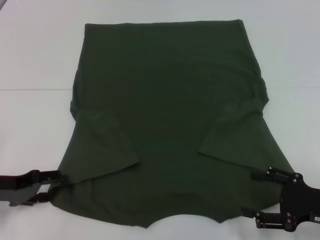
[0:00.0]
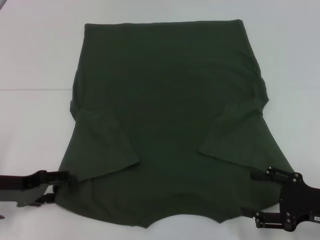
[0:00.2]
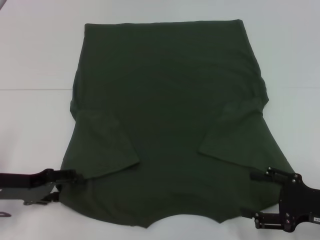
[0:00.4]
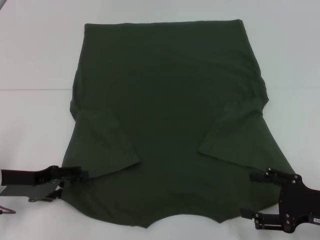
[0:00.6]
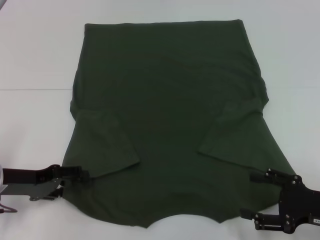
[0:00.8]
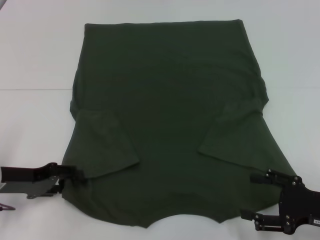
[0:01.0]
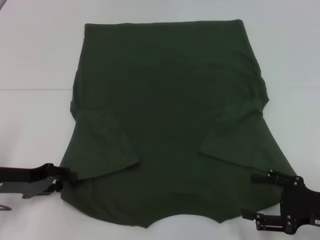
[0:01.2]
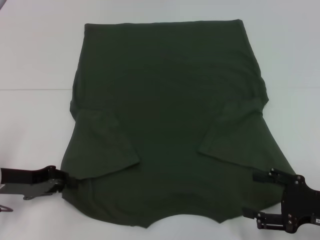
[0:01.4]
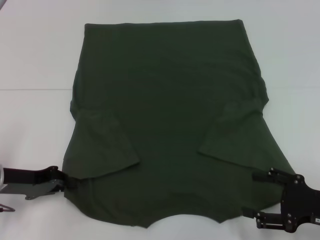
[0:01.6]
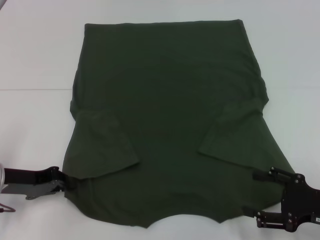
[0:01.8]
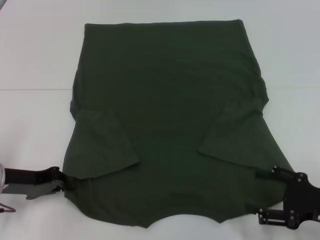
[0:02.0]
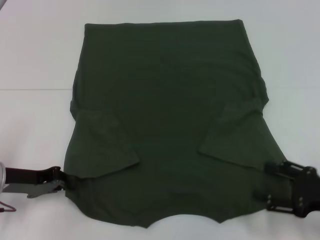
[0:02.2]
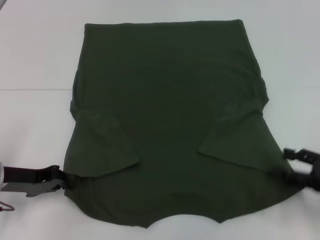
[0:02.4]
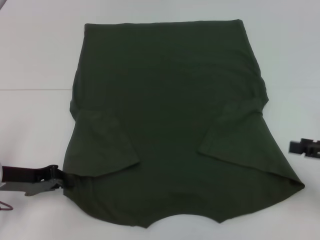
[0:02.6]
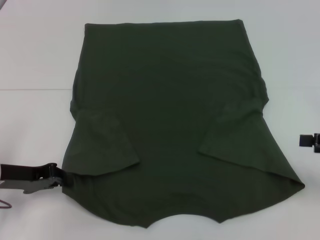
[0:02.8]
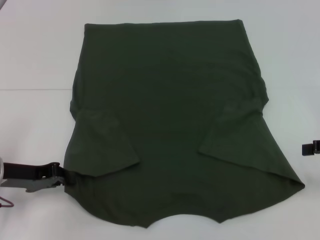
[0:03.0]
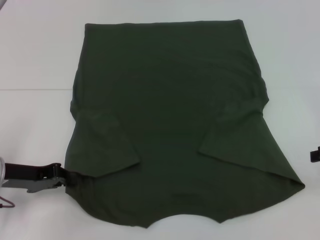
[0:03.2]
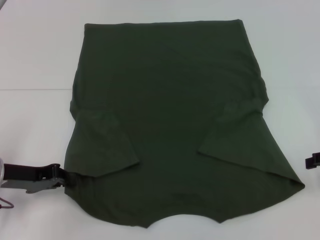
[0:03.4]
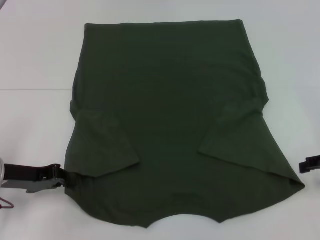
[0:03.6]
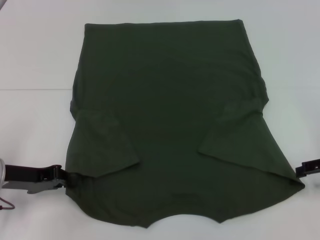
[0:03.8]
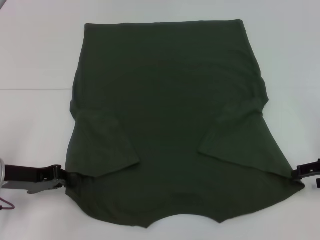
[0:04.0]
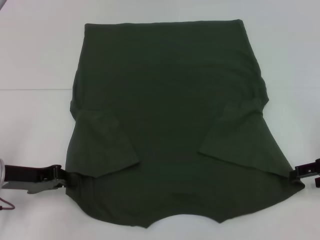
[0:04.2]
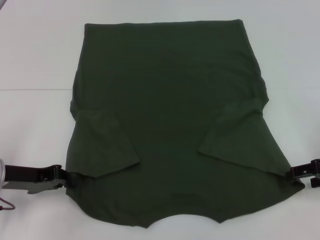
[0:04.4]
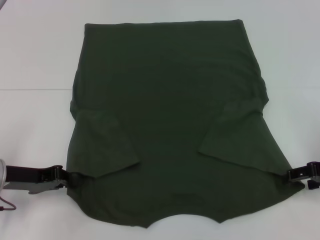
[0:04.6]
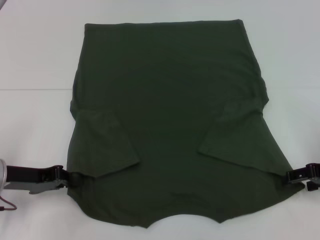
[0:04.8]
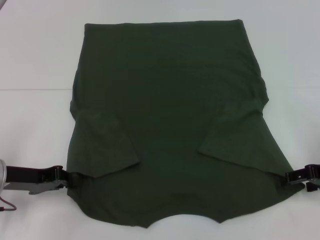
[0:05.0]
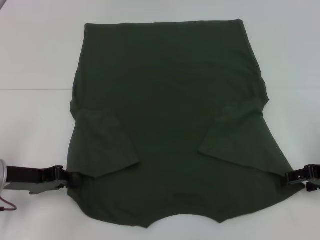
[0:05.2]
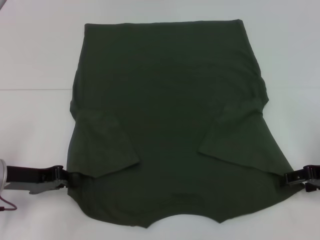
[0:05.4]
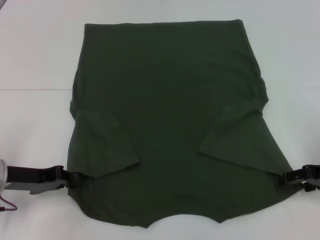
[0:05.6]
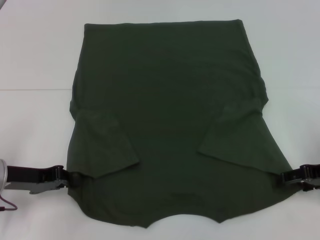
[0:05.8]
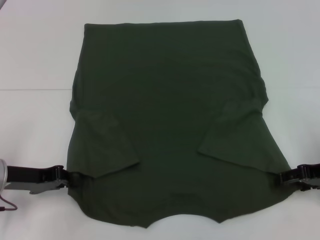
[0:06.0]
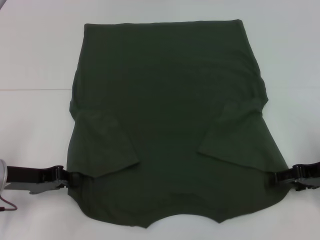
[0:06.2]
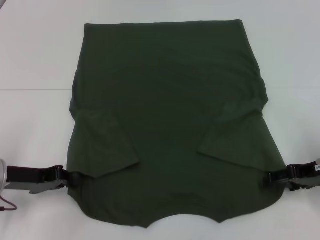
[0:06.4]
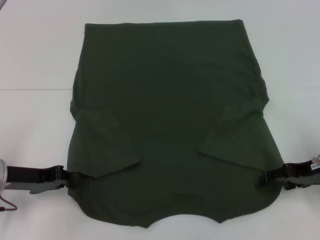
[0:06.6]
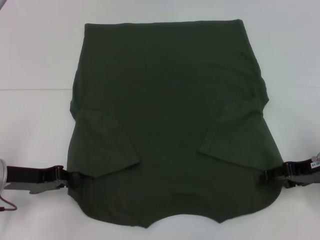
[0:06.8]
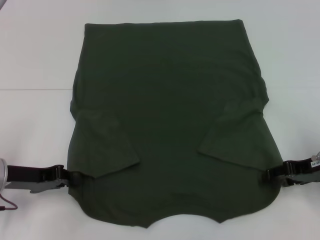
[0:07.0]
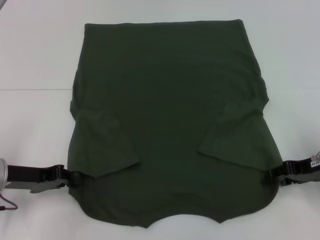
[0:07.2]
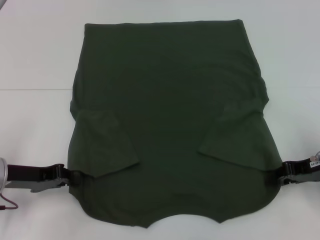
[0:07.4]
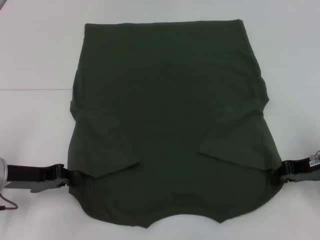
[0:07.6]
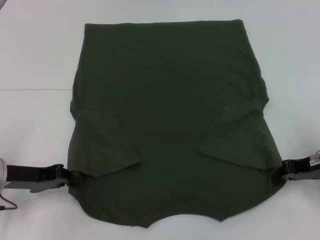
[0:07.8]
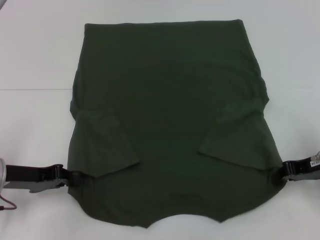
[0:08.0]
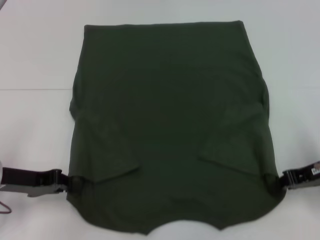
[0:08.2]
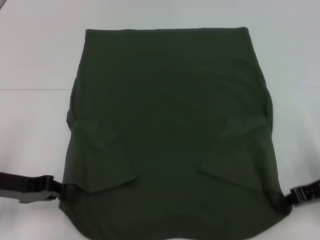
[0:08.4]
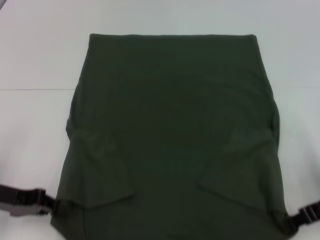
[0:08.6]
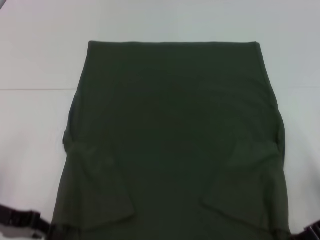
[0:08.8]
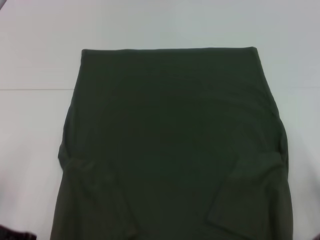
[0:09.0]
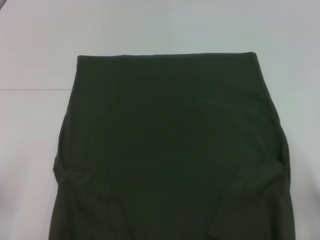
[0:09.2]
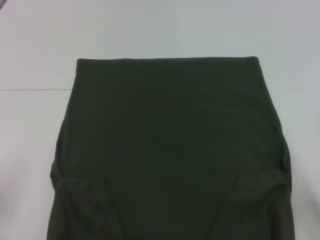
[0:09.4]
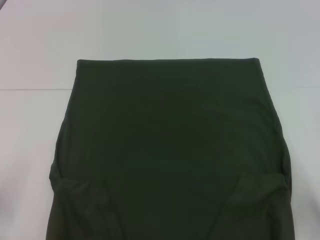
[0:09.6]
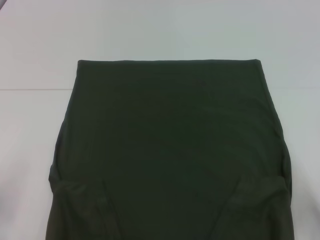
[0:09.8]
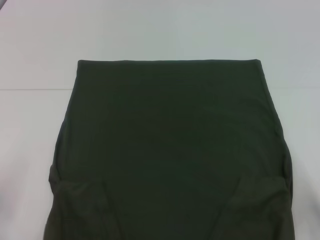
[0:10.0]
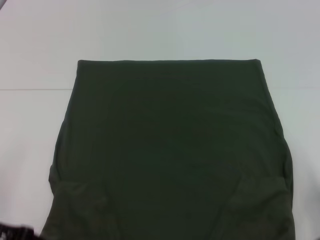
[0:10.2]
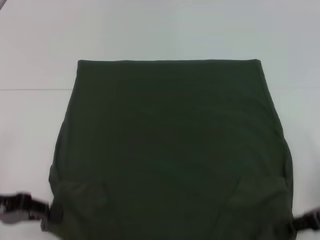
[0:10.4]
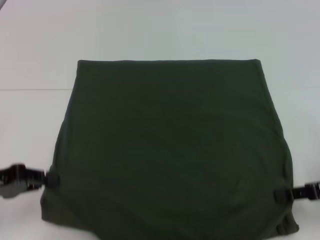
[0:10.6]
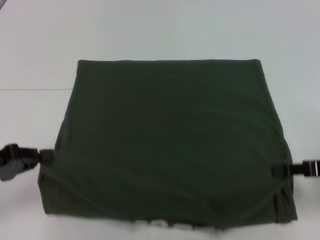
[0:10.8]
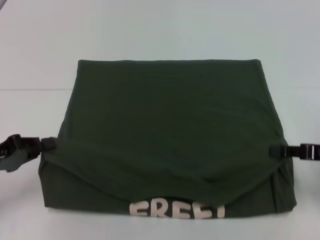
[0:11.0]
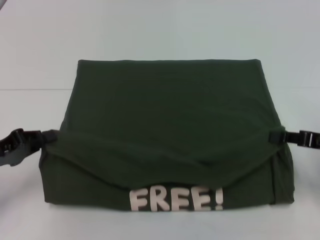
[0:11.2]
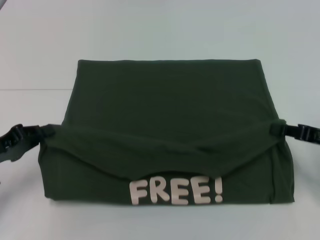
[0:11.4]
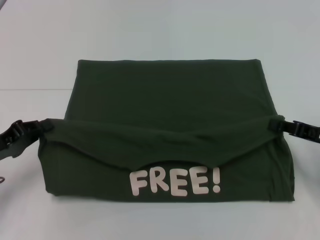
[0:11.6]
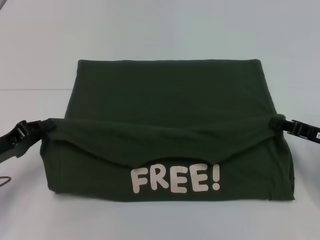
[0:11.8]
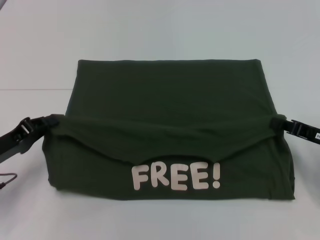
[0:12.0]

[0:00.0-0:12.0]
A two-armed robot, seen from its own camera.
Step, 0:00.0 to 0:02.2: Grab the bottom left corner with your left hand.
Step, 0:02.4 to 0:07.6: Grab the bottom right corner with your right hand.
0:00.0 to 0:01.6: The left gripper closes its fingers.
0:01.6 to 0:03.0: The right gripper goes about 15 cm upward, to the right and forward.
0:03.0 to 0:04.4: The right gripper moves some 5 cm.
0:04.4 to 0:06.0: The grippers stay close to where they were, moving slightly.
0:06.0 to 0:07.6: The right gripper closes its fingers.
0:07.6 to 0:09.0: Both grippers move backward, about 5 cm.
0:09.0 to 0:10.4: There are only small adjustments of the grippers.
0:10.4 to 0:12.0: The right gripper is displaced forward by roughly 5 cm, while the left gripper ends up about 5 cm from where it was.

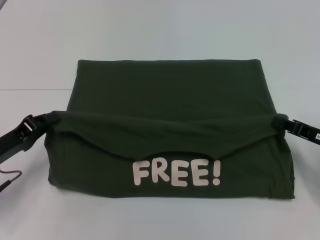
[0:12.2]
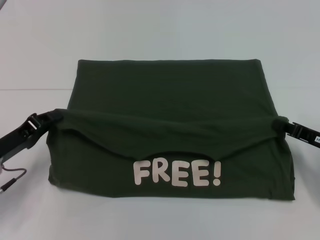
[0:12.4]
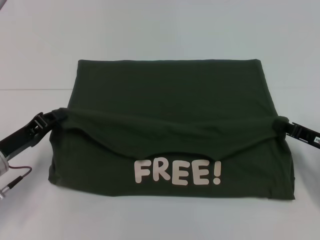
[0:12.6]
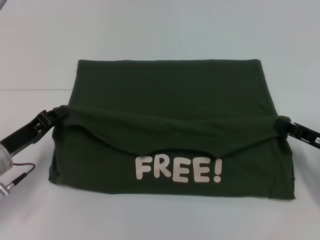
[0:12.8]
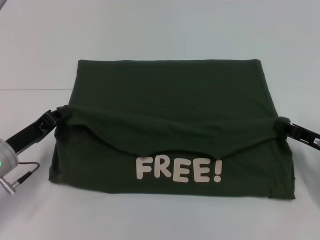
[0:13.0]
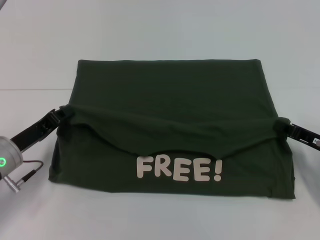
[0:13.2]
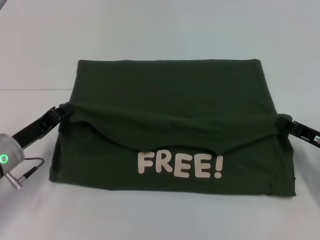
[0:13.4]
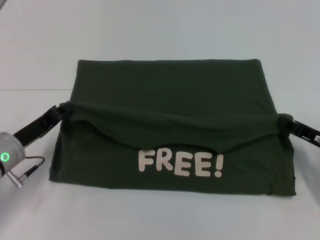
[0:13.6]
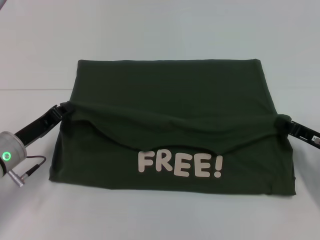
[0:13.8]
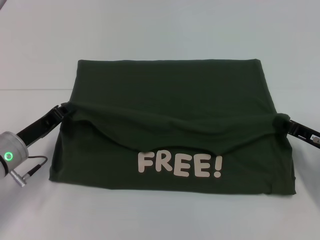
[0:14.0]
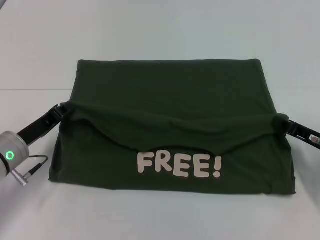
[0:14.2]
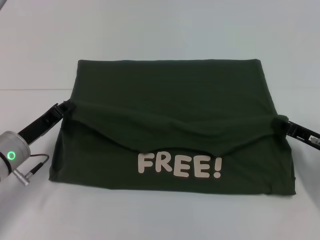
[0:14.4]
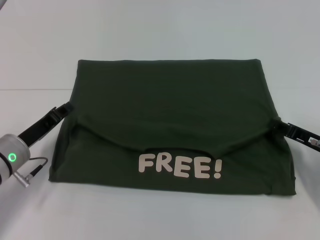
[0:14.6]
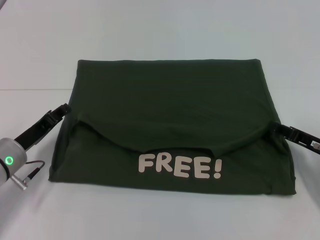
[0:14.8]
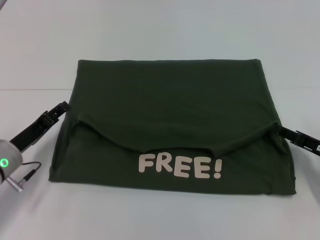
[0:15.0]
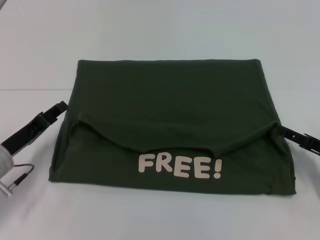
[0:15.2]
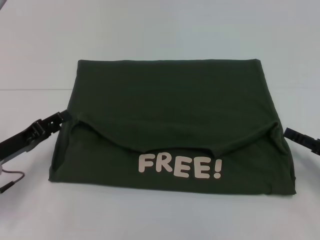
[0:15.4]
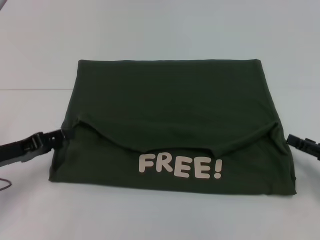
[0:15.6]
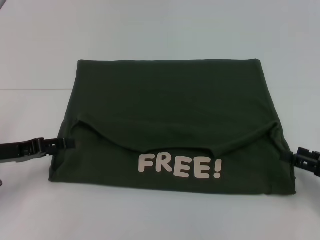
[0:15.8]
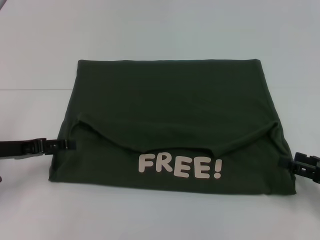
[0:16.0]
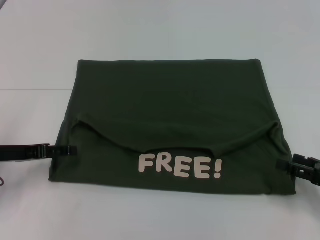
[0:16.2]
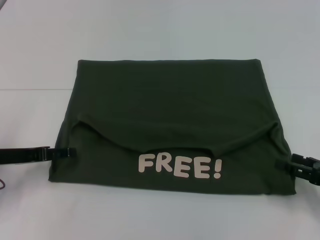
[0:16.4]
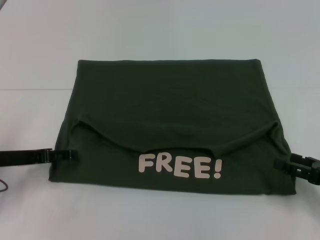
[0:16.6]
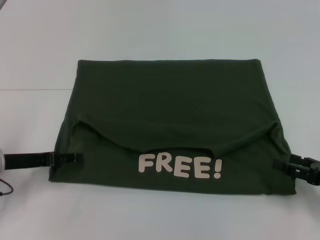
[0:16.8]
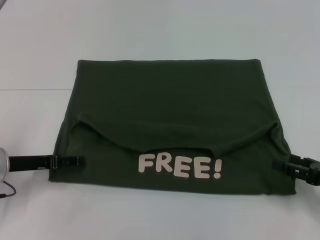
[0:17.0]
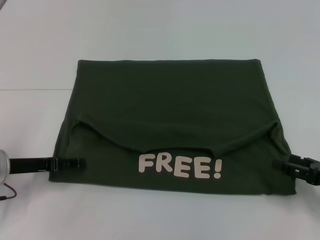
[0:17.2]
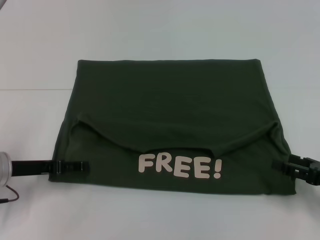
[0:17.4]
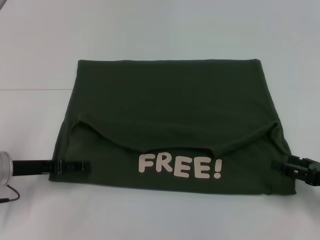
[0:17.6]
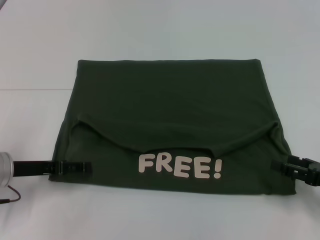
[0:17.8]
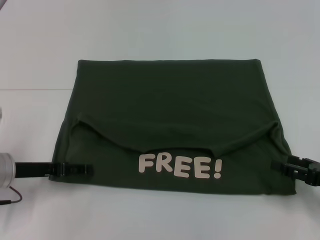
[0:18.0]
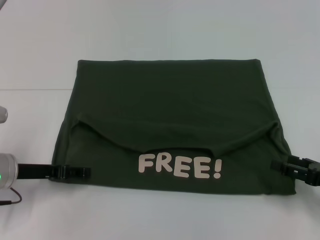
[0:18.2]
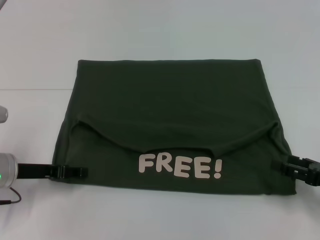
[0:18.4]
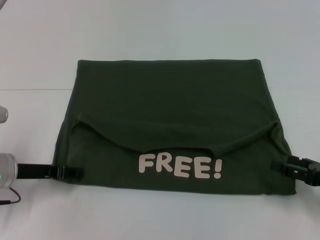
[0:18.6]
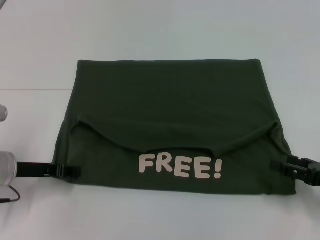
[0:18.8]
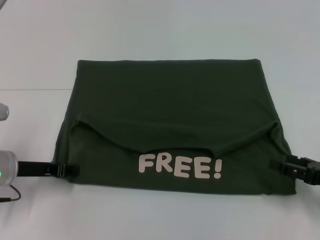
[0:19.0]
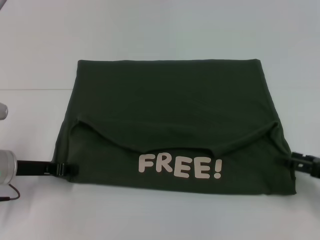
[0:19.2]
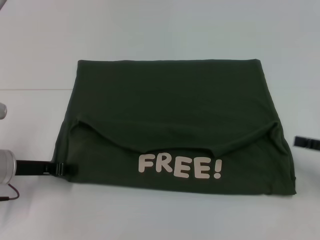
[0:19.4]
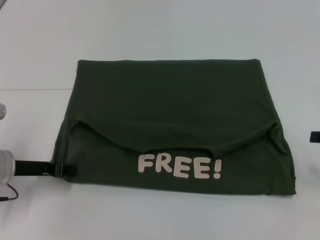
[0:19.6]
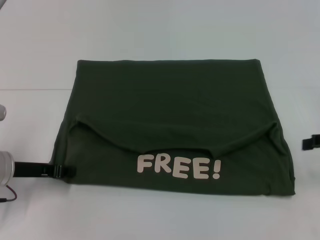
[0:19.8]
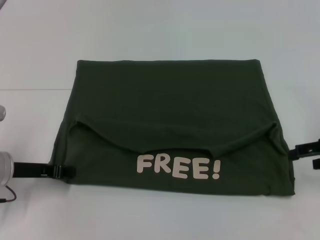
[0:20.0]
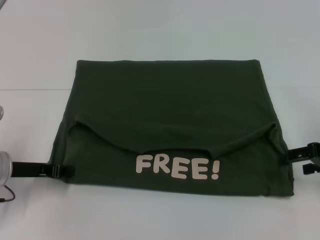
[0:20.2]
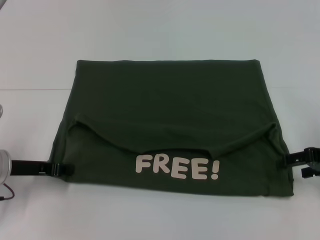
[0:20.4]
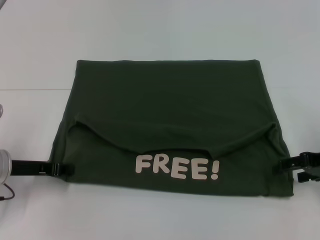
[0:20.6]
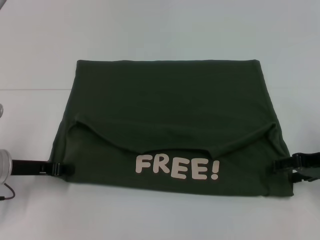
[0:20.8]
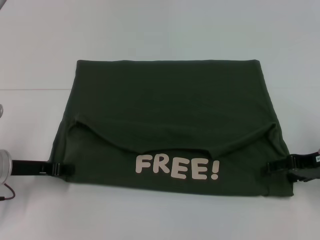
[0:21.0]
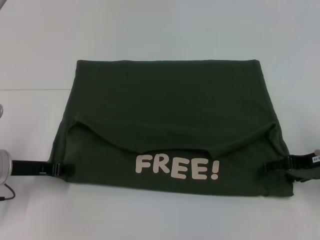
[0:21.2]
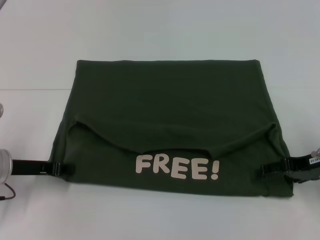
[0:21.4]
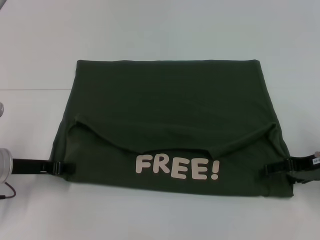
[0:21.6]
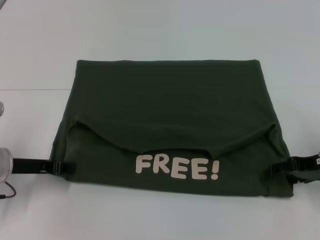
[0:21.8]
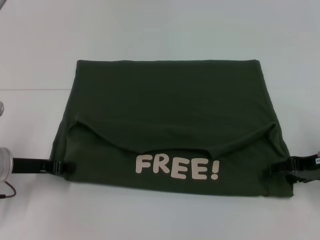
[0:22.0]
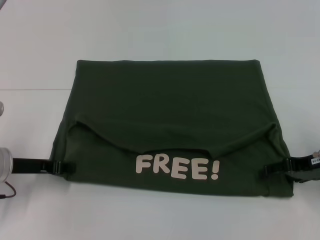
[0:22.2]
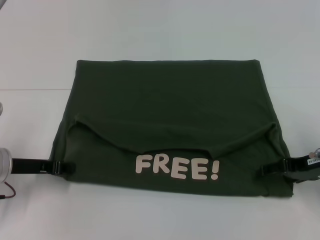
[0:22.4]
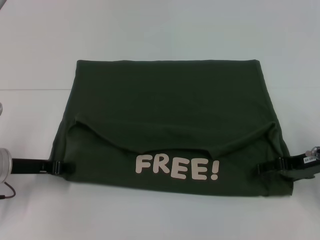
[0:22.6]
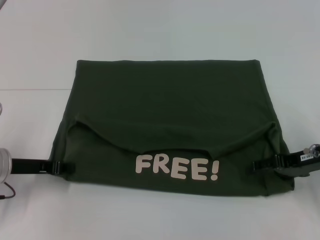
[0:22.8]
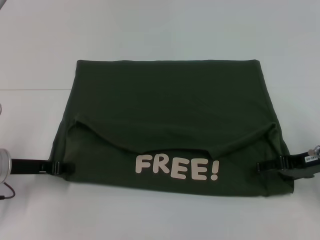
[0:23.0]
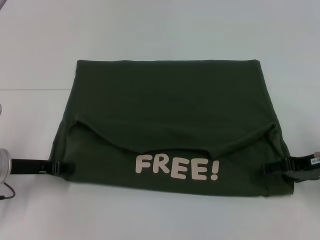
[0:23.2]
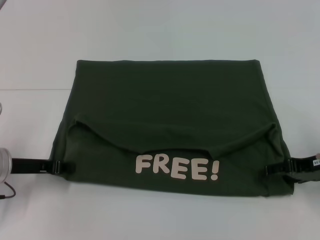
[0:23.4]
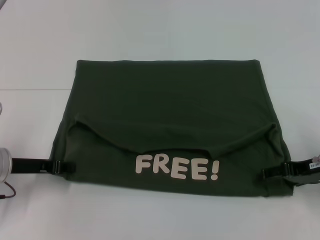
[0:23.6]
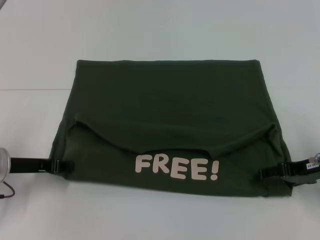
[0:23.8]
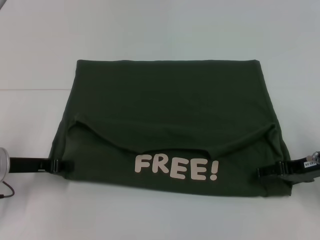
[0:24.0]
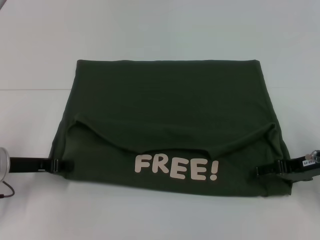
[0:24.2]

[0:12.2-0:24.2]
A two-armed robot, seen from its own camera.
Step, 0:12.2 to 0:14.8: Fold the clothes with your left hand.
Step, 0:12.2 to 0:14.8: Fold the clothes with your right hand.
0:12.2 to 0:13.8: The left gripper shifts by about 5 cm.
0:13.8 to 0:15.2: The right gripper opens up; the left gripper opens its fingers.
0:15.2 to 0:16.6: The left gripper opens up.
0:16.6 to 0:18.2: The grippers stay close to where they were, moving slightly.
0:18.2 to 0:19.8: The left gripper closes its fingers, while the right gripper heads upward and forward, covering some 10 cm.
0:19.8 to 0:21.2: The right gripper moves to the left, about 5 cm.
0:21.2 to 0:22.6: Both grippers stay about where they are.
0:22.6 to 0:24.2: The grippers stay close to where they were, moving slightly.
